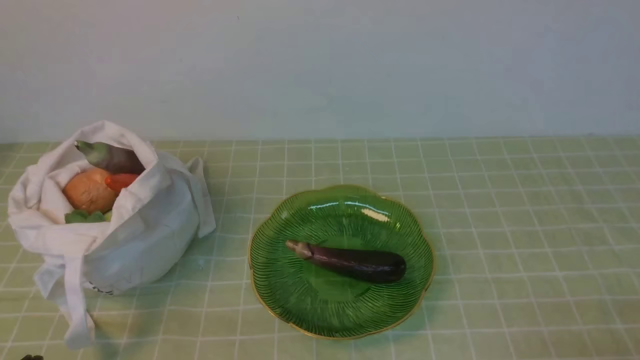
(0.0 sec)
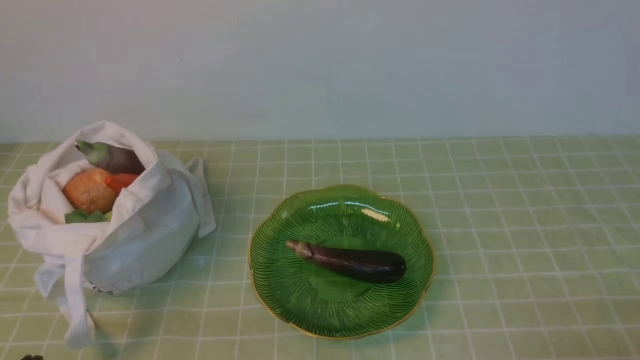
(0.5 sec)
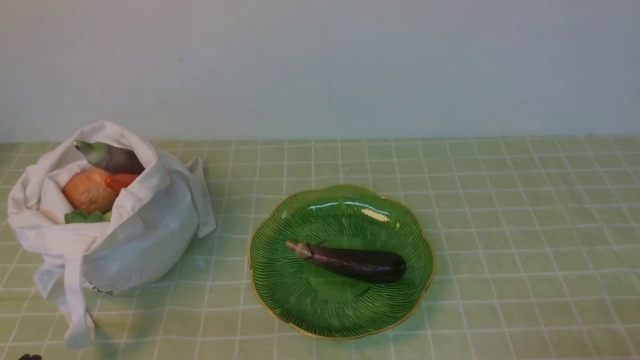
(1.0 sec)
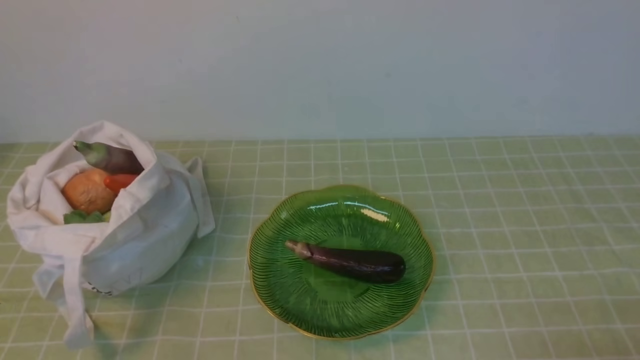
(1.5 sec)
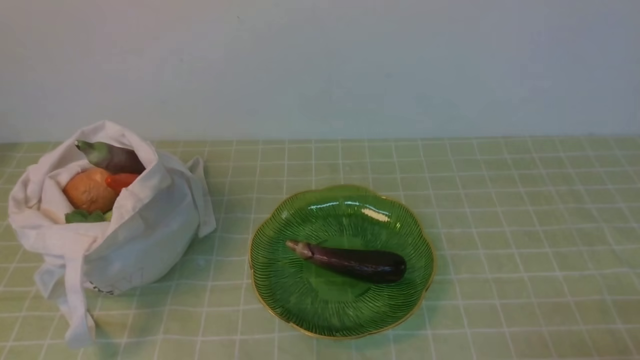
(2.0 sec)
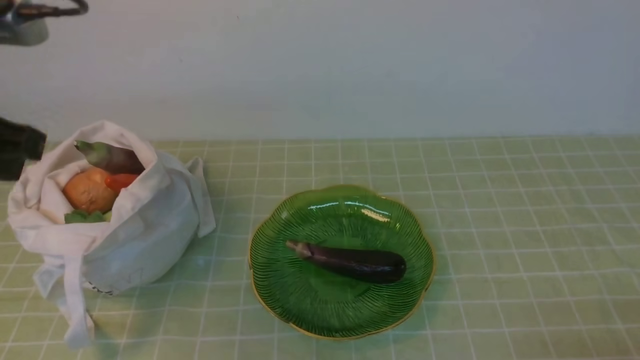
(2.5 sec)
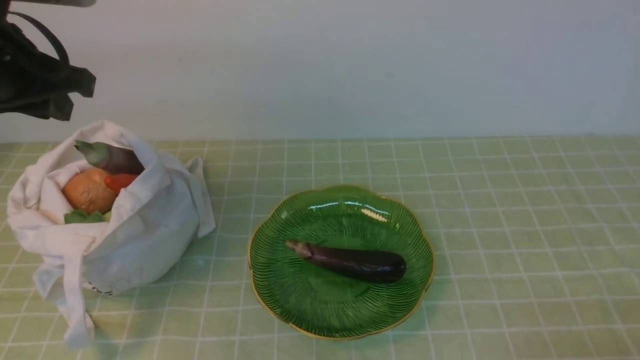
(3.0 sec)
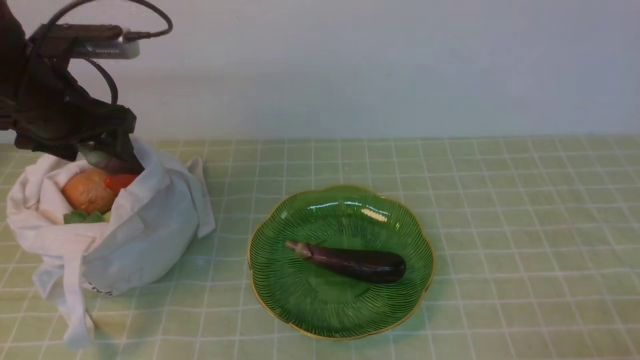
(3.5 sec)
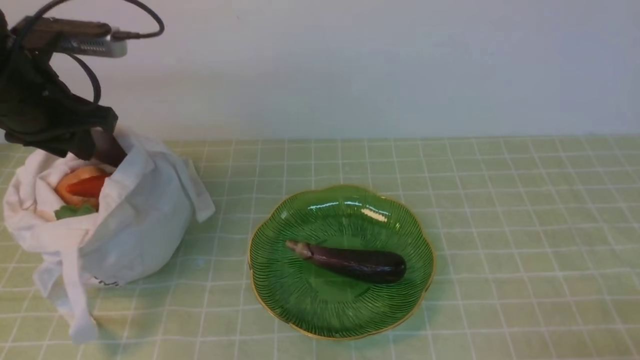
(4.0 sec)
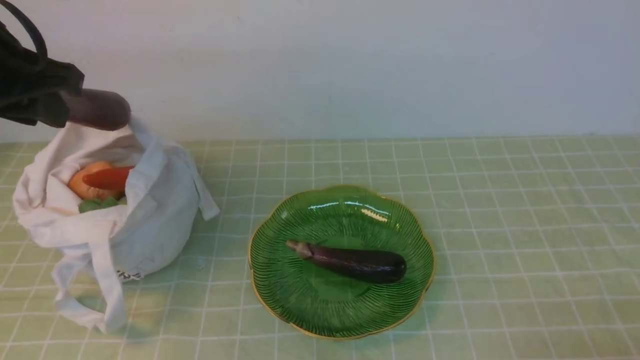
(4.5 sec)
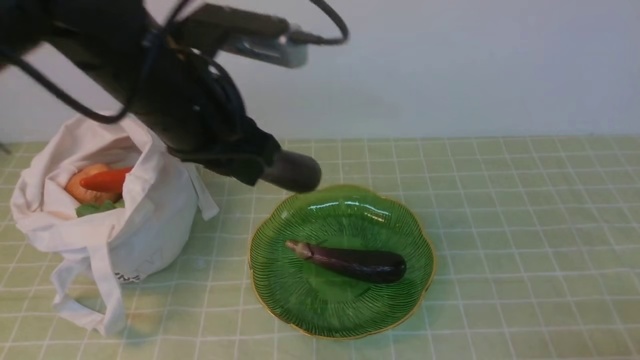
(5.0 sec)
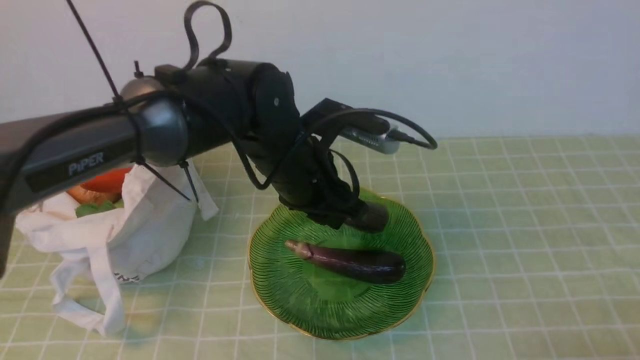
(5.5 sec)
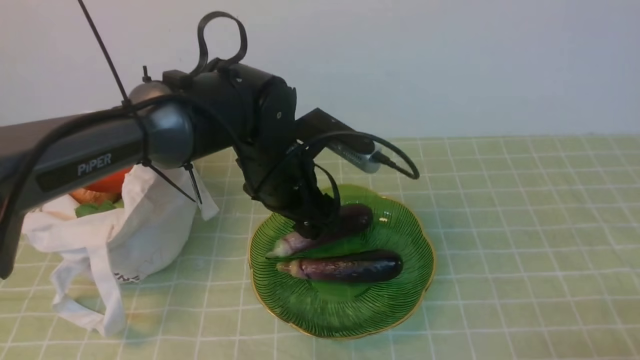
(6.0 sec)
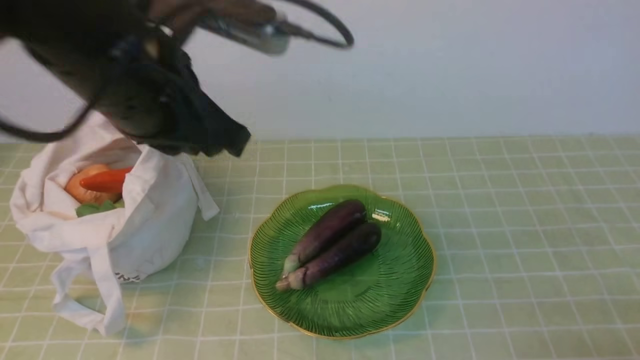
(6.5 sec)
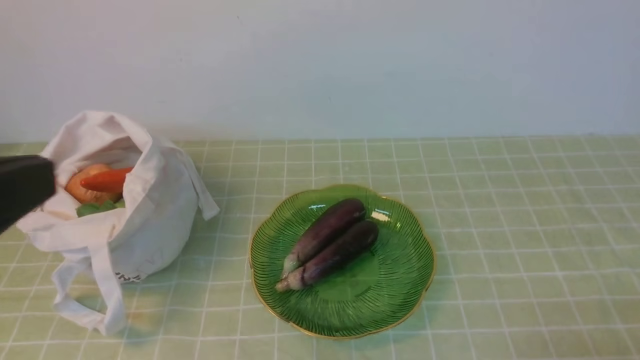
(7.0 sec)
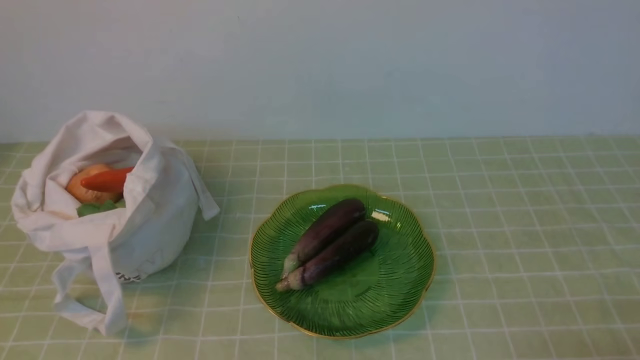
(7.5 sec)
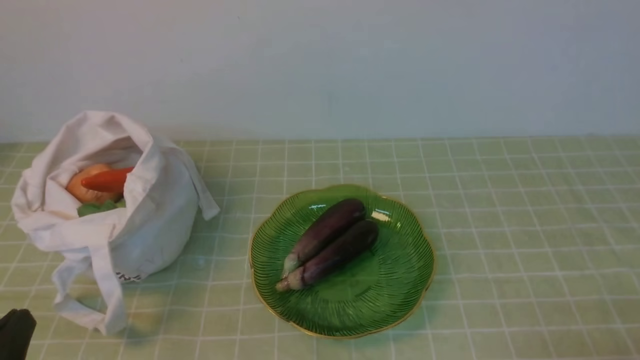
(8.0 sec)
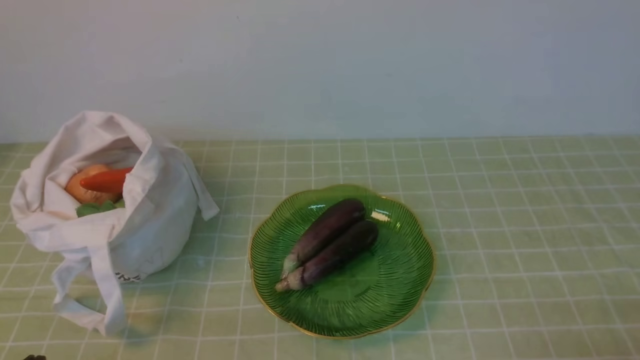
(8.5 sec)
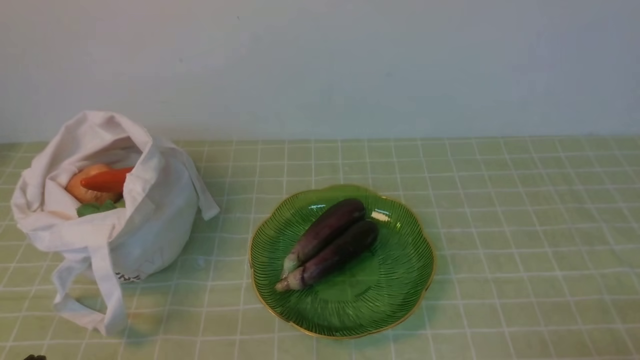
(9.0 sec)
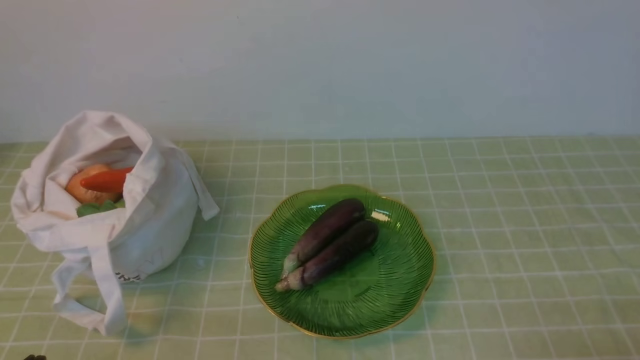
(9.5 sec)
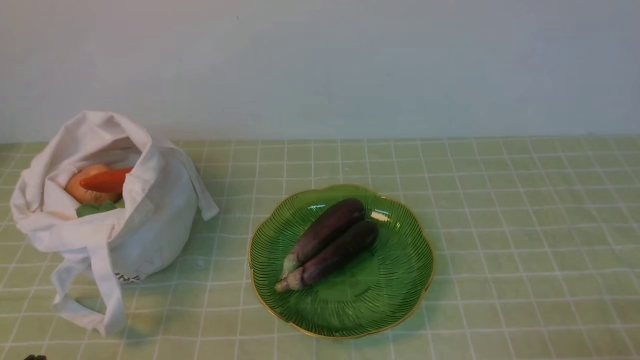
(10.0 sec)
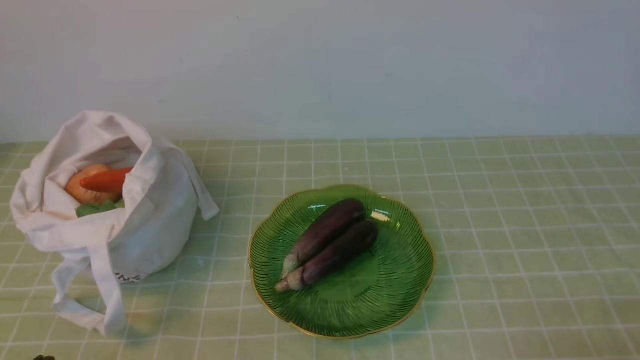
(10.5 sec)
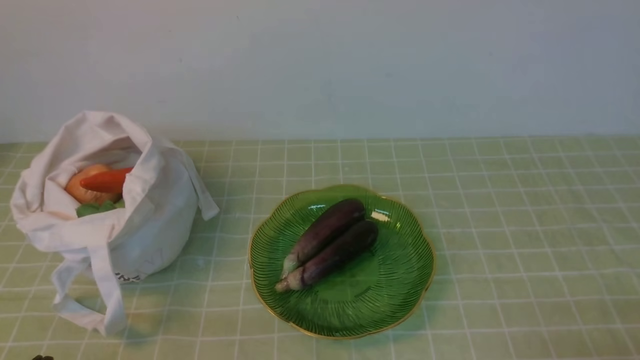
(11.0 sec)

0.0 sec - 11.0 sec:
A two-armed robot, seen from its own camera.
Task of the whole recording: take vegetables from bag on green coffee tablecloth place on plate.
Step, 0.0 sec - 3.5 sec: Grasp the eggplant with left gripper.
Step, 4.0 sec - 6.0 sec: Place the eggplant on the plate with left gripper.
2.0 sec - 3.5 sec: The left gripper travels forward by approximately 30 cm, and opens.
3.5 sec - 5.5 sec: The left gripper moves to the right, about 25 cm, and closes its fingers.
5.5 sec - 7.5 sec: The left gripper moves backward and to the left, approximately 35 cm, and closes.
9.0 sec - 11.0 sec: The two grippers keep their place.
